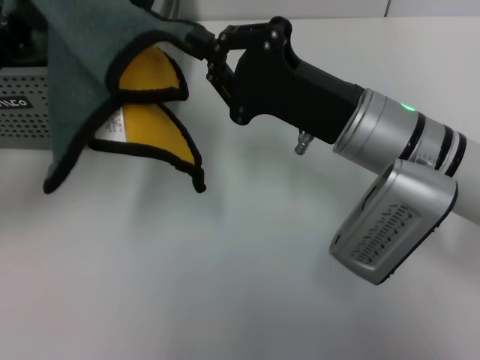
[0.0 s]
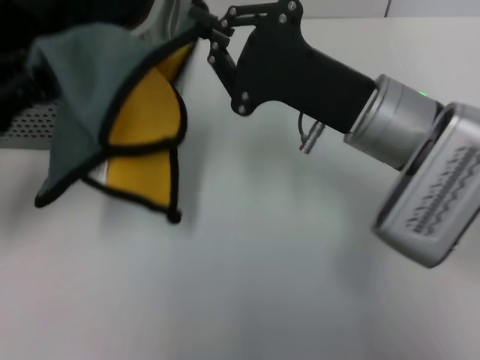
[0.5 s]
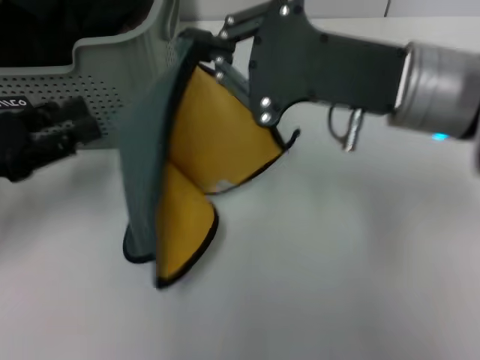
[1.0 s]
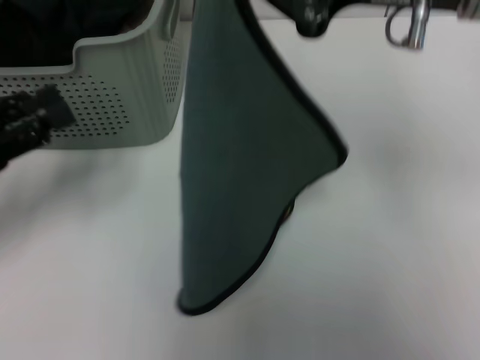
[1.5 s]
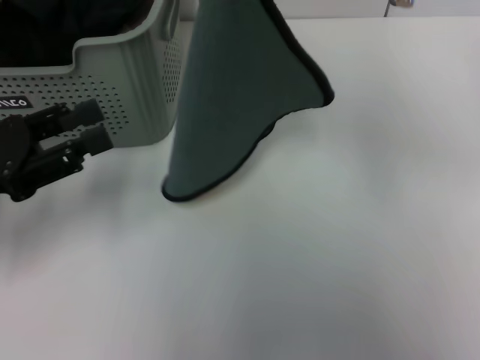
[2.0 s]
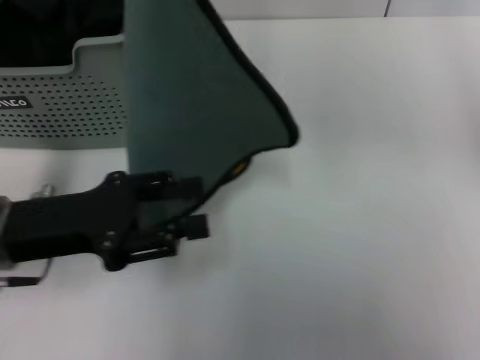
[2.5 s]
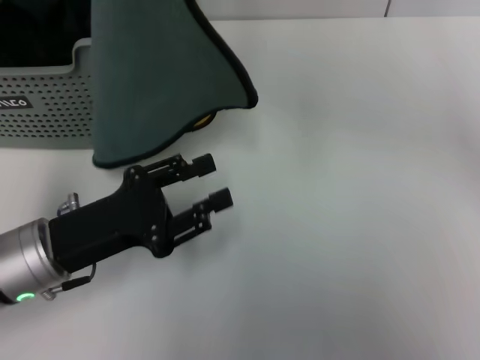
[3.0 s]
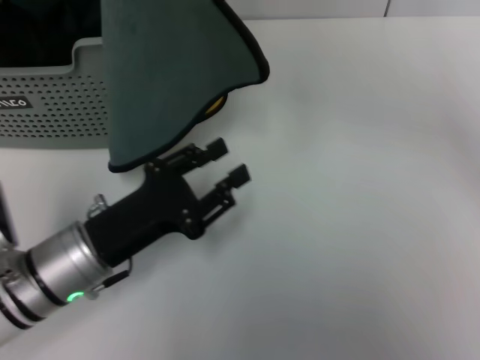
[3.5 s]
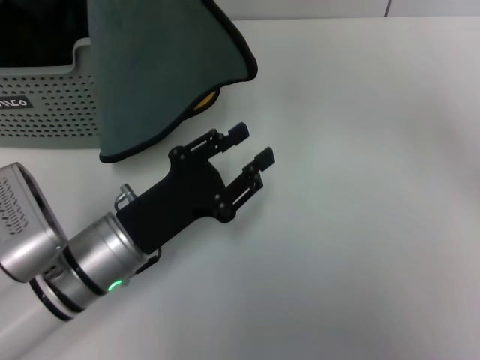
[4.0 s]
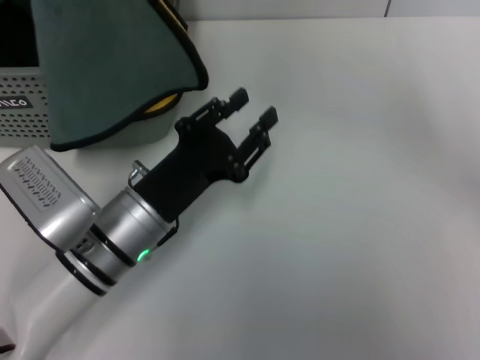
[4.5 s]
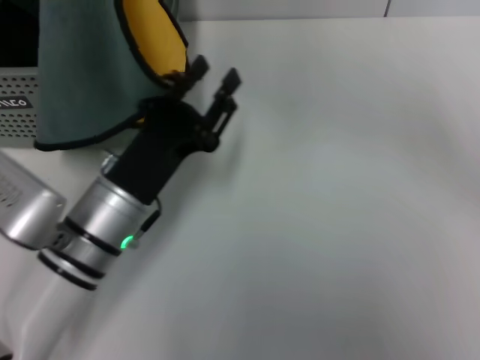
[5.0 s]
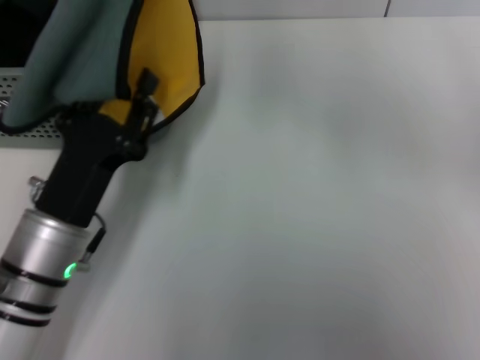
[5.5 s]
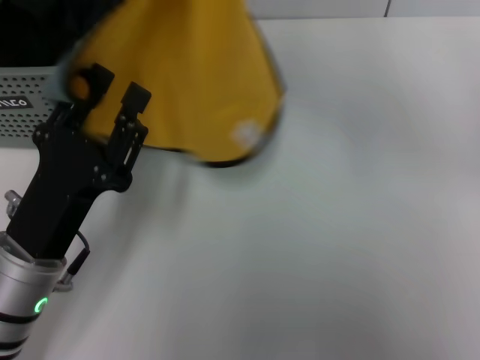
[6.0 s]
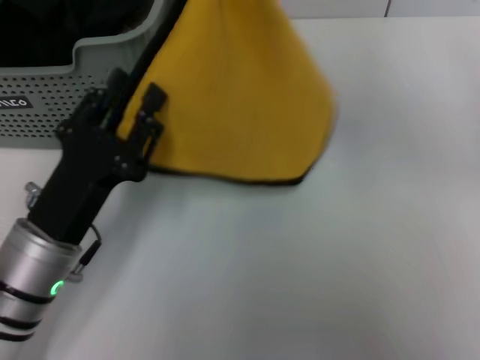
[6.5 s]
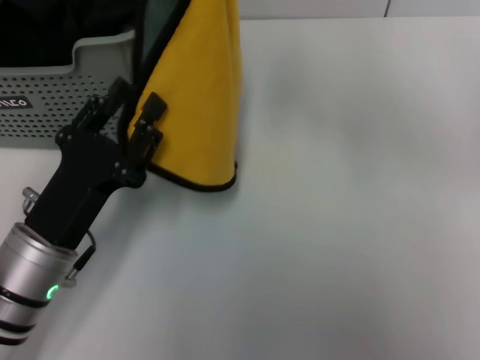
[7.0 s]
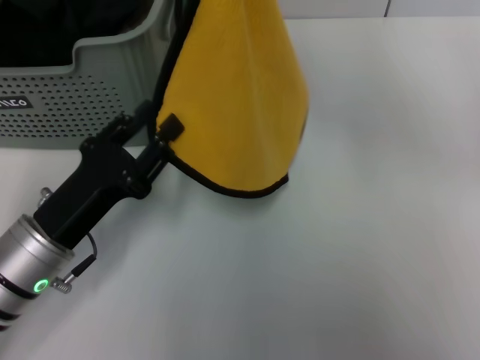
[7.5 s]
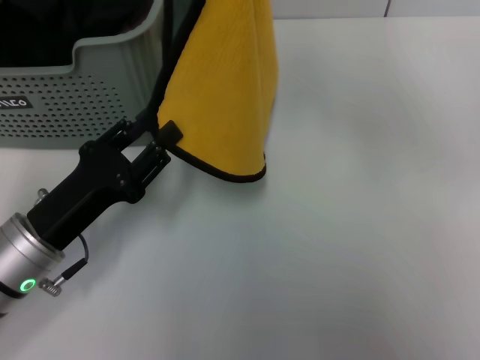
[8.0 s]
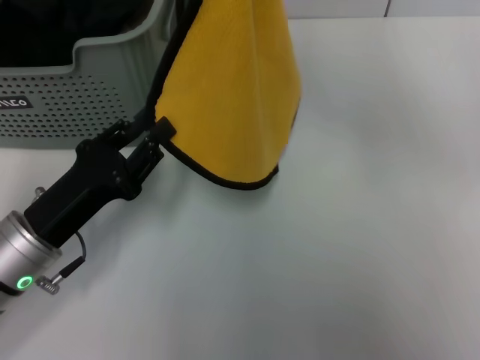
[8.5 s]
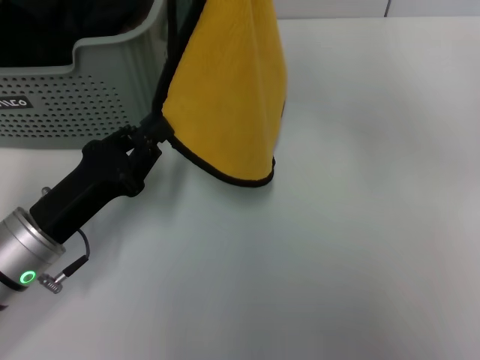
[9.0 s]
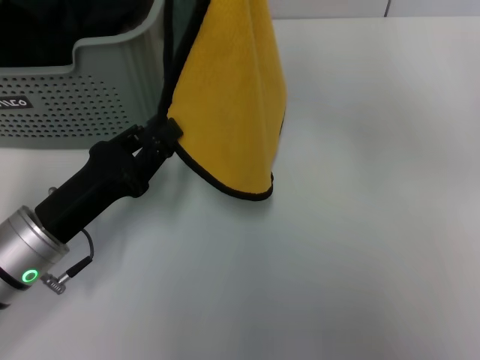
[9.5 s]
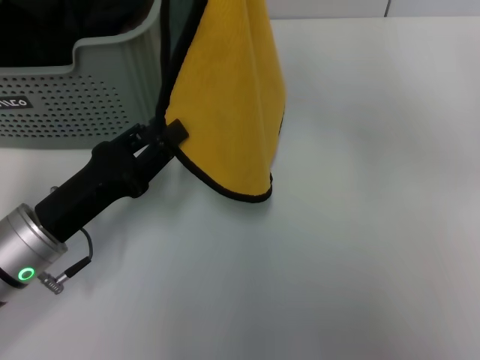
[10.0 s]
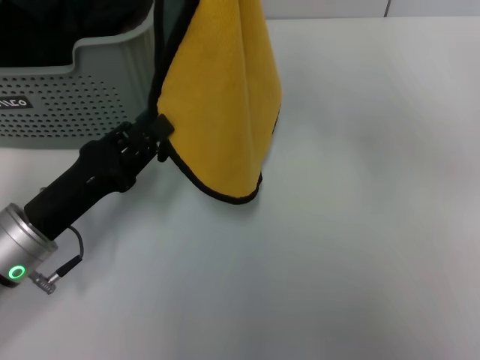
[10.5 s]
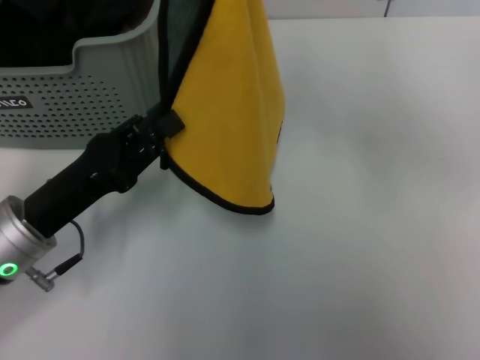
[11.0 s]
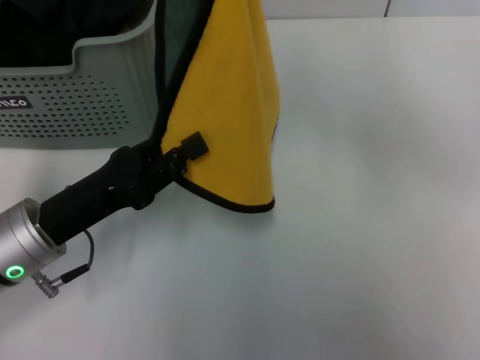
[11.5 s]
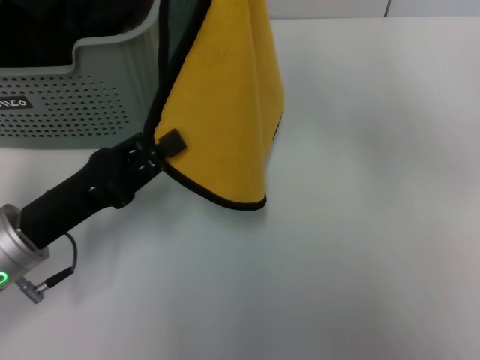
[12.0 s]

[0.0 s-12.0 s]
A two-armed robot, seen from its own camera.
Task of the whole recording: pick up the towel from the storage box and lay it flat on the table.
0.0 to 2.0 s: The left gripper changes place by some 5 cm, and opens. The right gripper moves upward, some 20 cm.
2.0 to 4.0 s: The right gripper heads to the left and forward, covering roughly 10 cm. The left gripper travels to the right and downward by roughly 20 cm.
4.0 to 6.0 s: The left gripper moves approximately 5 cm; the right gripper goes about 5 cm to the right.
8.0 to 10.0 s: There are only small adjustments of the grippers.
10.0 to 12.0 s: The grippers move only a little.

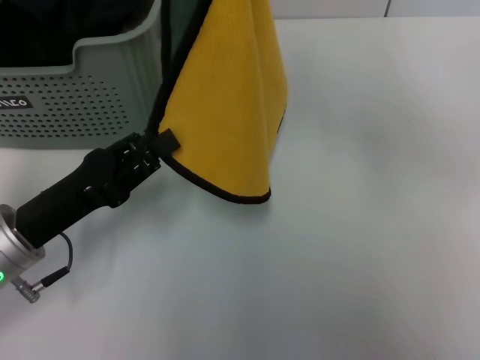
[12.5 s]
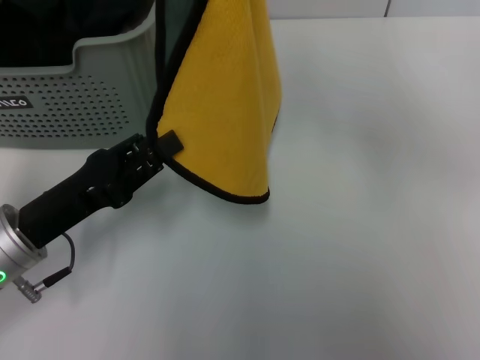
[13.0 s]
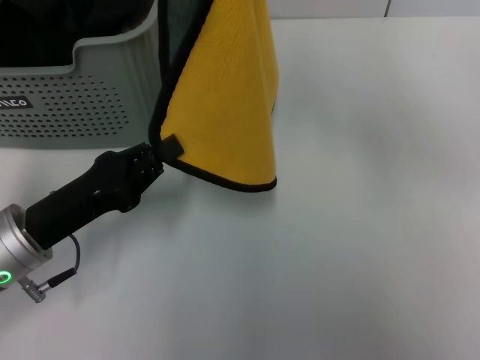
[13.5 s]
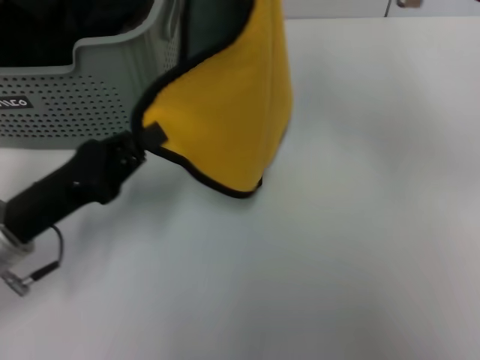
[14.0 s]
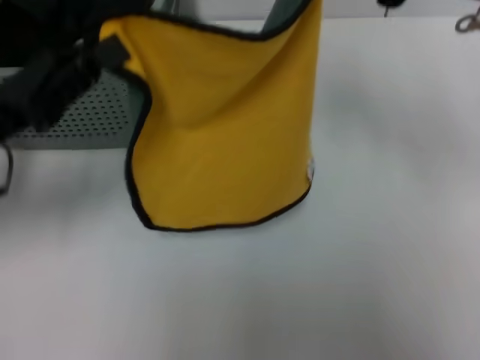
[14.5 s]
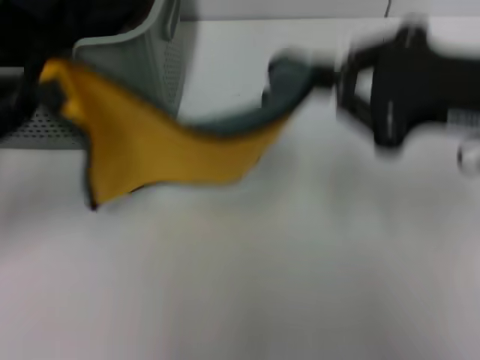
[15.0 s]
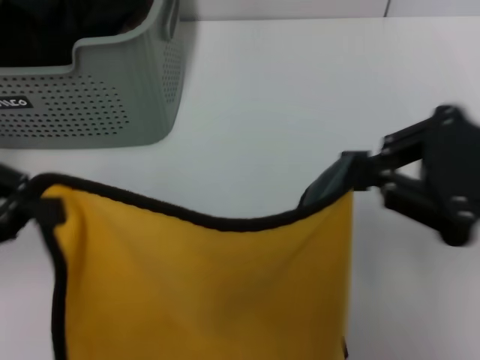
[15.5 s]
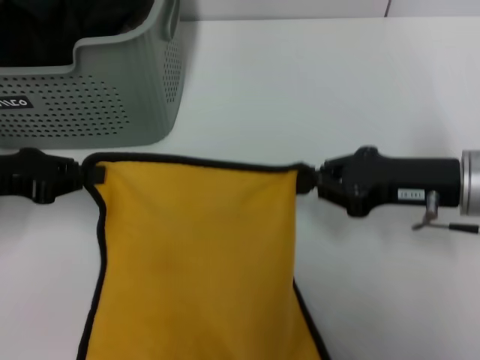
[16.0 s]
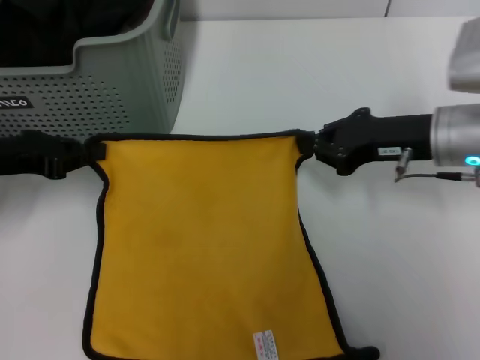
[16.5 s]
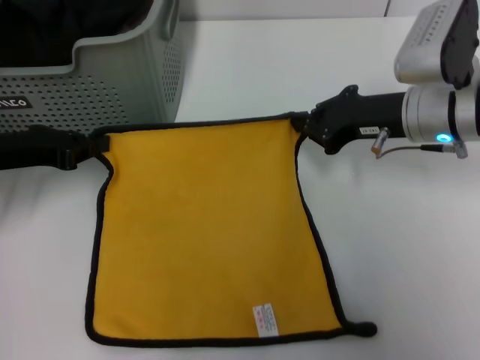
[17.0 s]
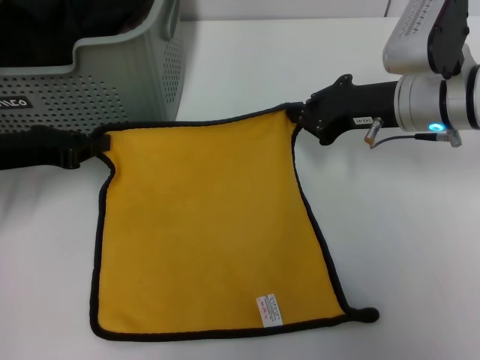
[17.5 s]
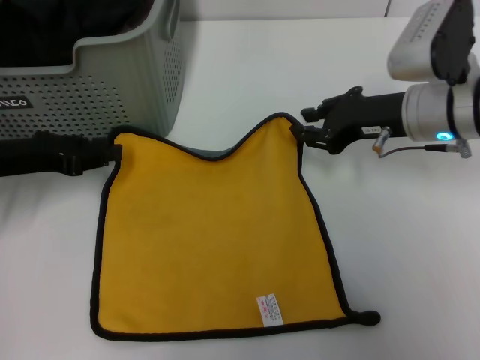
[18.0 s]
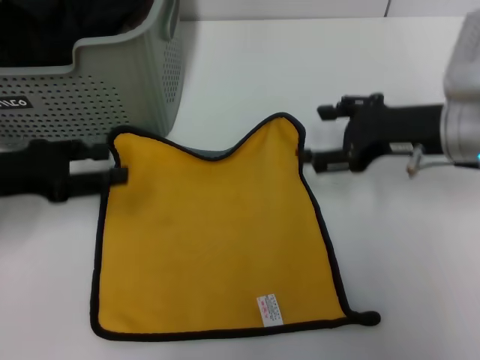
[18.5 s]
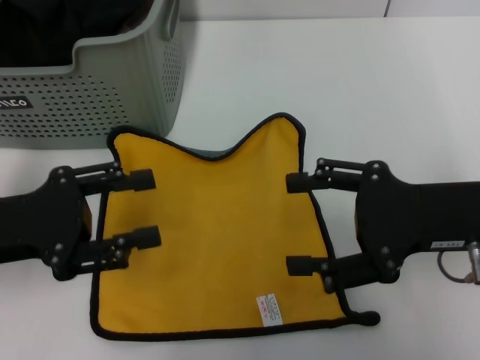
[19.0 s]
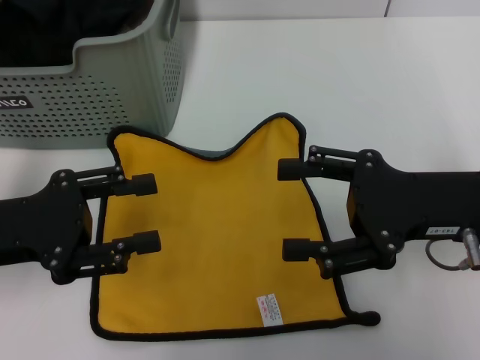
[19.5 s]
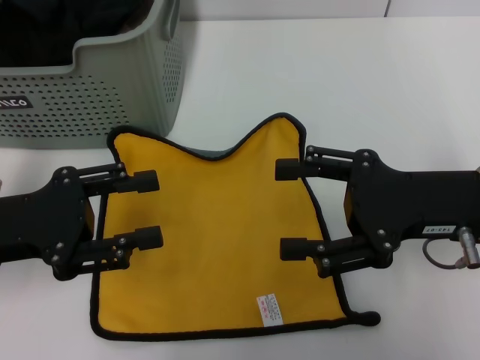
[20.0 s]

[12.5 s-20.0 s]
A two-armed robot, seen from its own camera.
Task of the whole recording: pick up the towel from the storage box and lay it flat on the table.
Step, 12.5 to 18.0 s: Spread the towel flat with the right gripper.
12.5 to 14.5 s: The right gripper goes some 5 cm to the right. The left gripper travels upward by about 10 cm, and closes up.
14.5 to 16.5 s: The right gripper travels downward by some 15 cm. The left gripper moves approximately 5 cm.
18.0 to 20.0 s: The grippers both shift backward by some 10 cm. The right gripper opens up. The left gripper opens.
